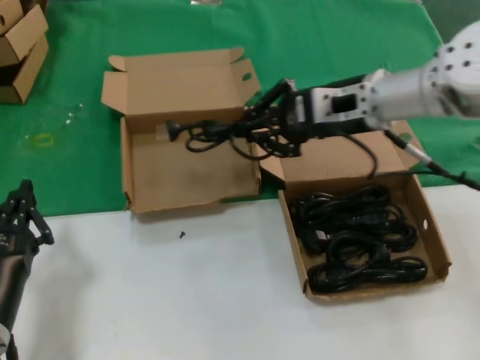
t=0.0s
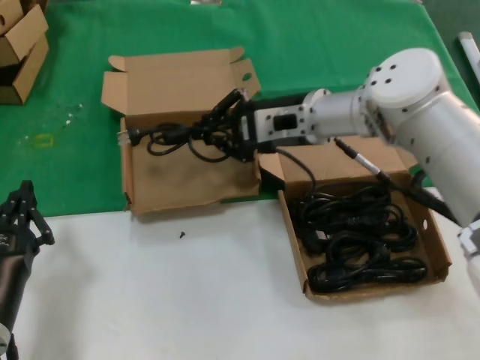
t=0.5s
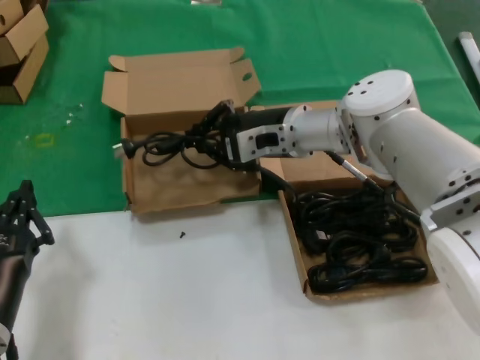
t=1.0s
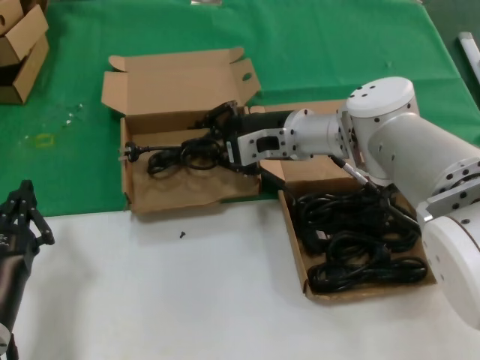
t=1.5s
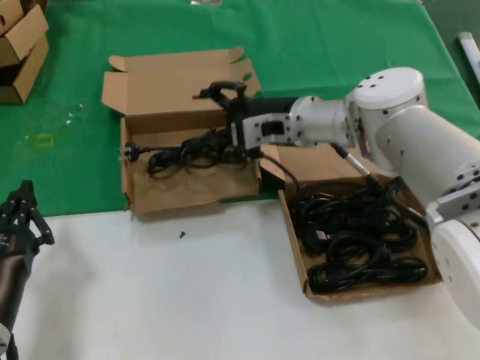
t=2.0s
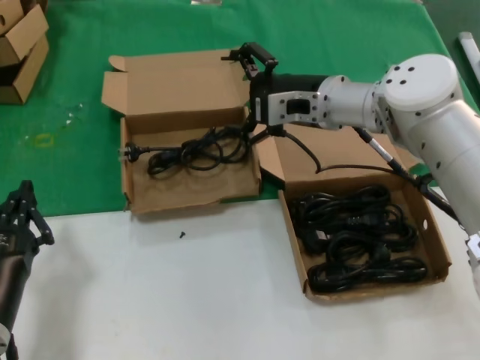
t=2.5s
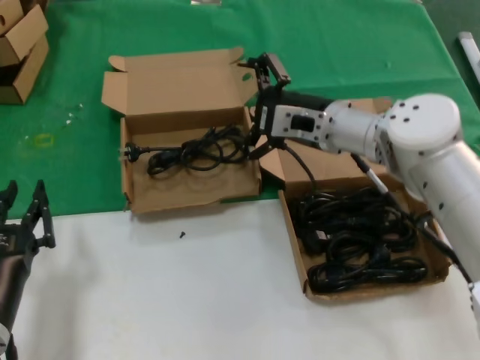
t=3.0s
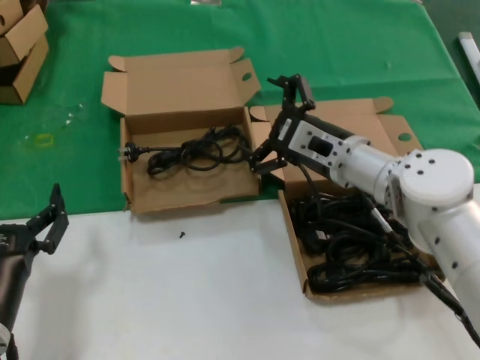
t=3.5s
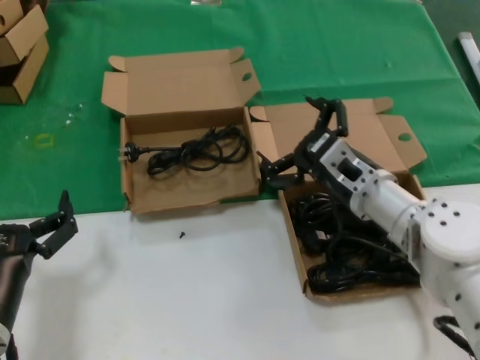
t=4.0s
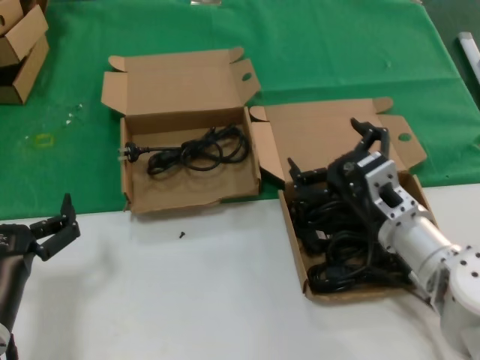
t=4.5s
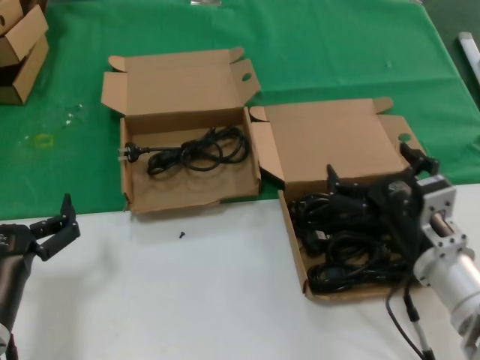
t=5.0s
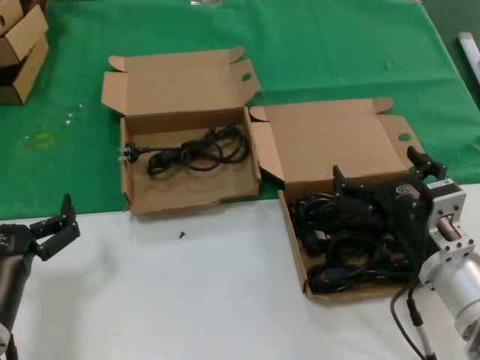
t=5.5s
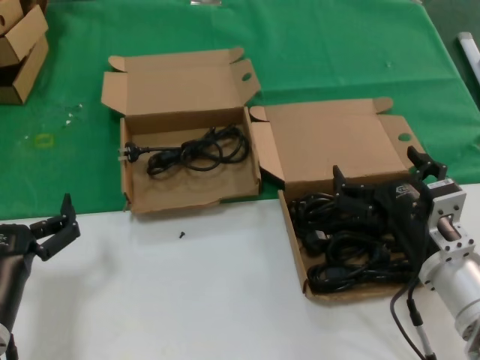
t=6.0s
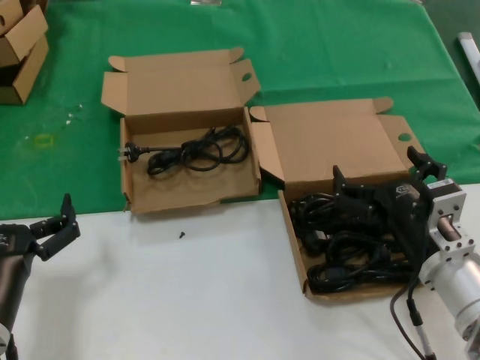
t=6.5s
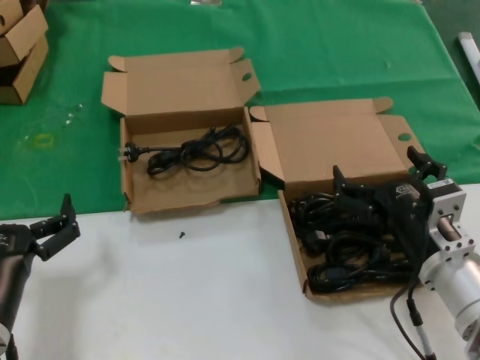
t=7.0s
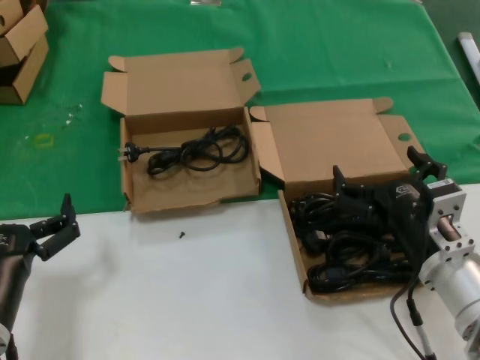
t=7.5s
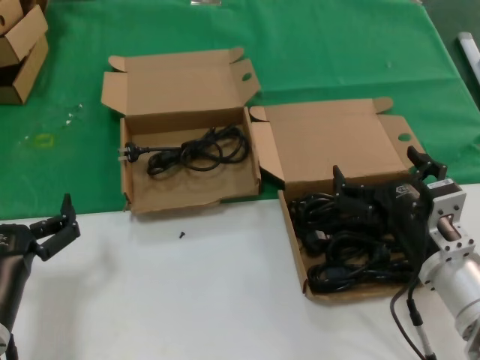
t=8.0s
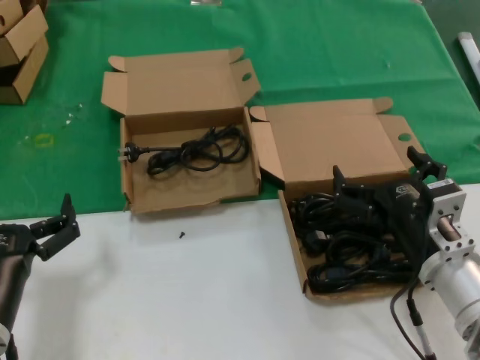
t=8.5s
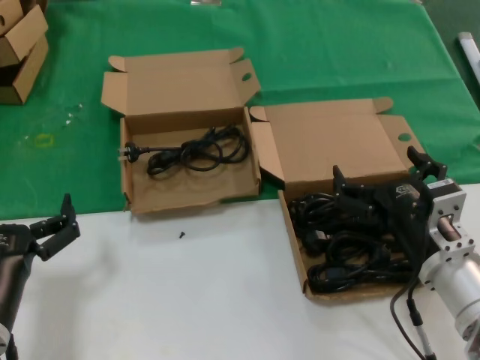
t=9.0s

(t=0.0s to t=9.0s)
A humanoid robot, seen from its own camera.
Task of the whole recording: take the parts from the box containing them and put them into an empty box.
t=0.0s - t=2.0s: The right hand travels to the left, downward and forward by some 10 cm.
t=2.0s - t=4.5s: The right hand travels backward, downward and to the right by approximately 20 cm.
t=4.5s - t=7.0s: The right hand goes some 5 cm backward.
t=7.0s - t=9.0s: Neither hand changes place.

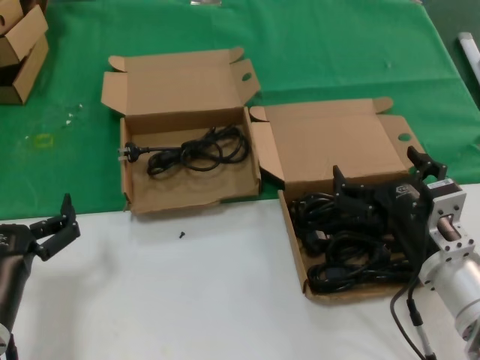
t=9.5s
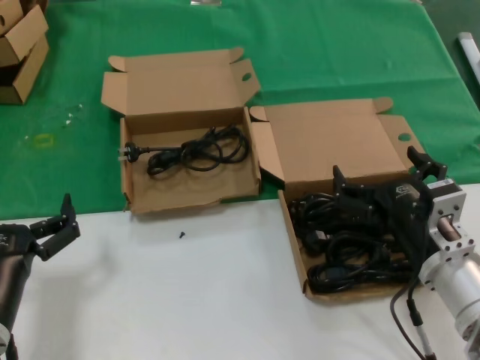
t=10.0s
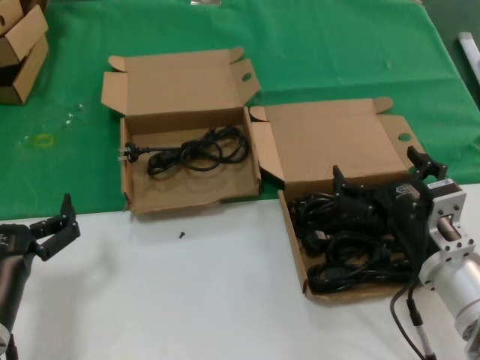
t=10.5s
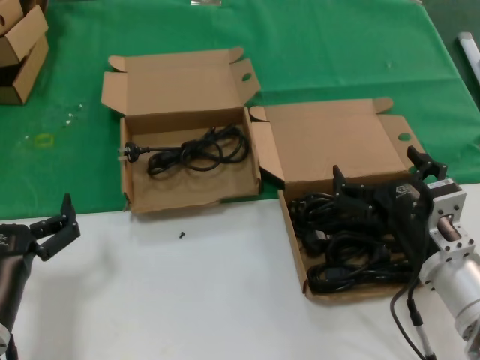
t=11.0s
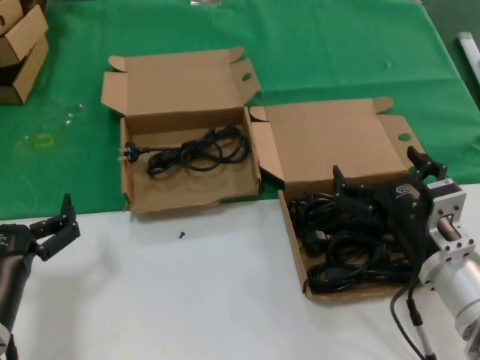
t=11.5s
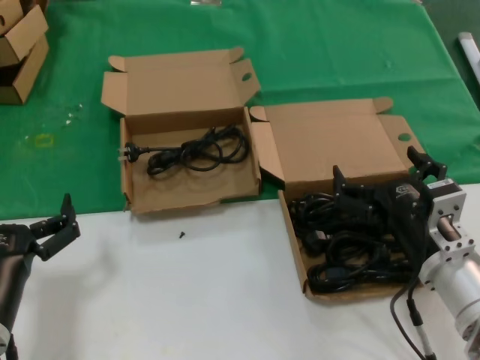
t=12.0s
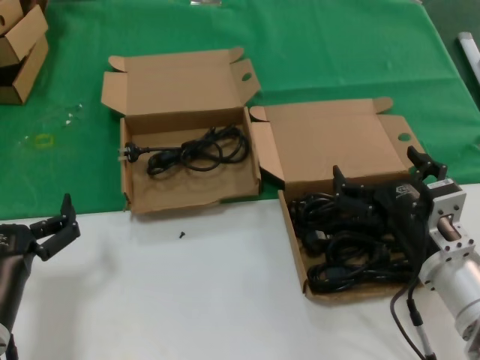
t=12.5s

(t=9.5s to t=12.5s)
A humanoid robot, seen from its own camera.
Task of the whole recording: take the parts from the box containing them and put them into an empty box.
t=9.5s - t=12.5s: Neither hand changes place.
